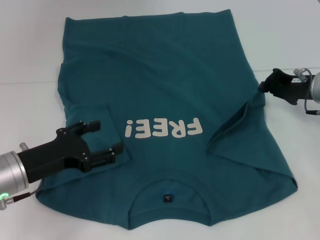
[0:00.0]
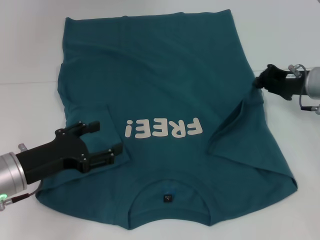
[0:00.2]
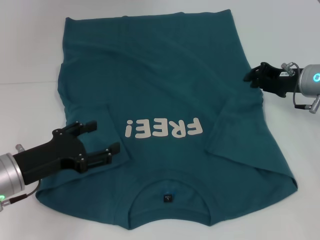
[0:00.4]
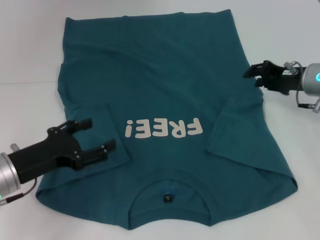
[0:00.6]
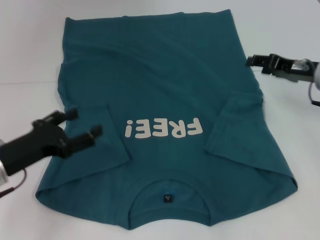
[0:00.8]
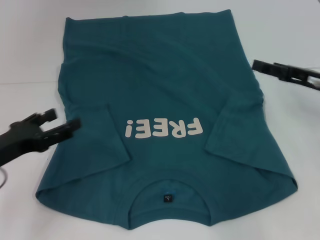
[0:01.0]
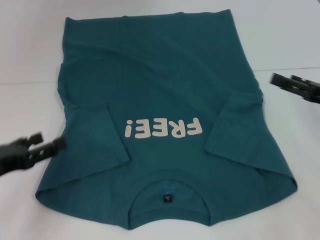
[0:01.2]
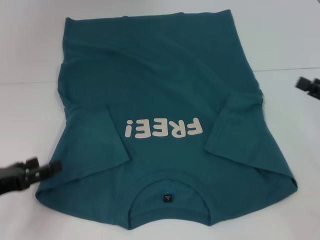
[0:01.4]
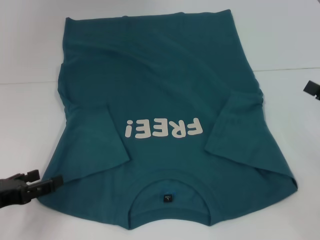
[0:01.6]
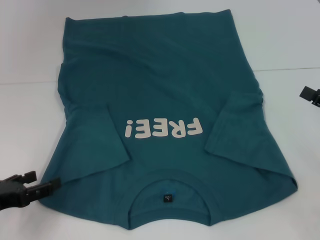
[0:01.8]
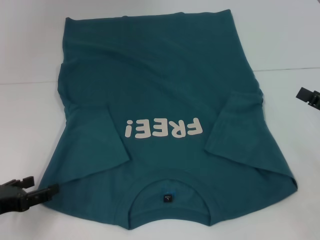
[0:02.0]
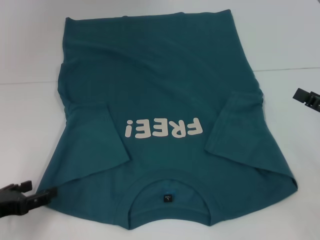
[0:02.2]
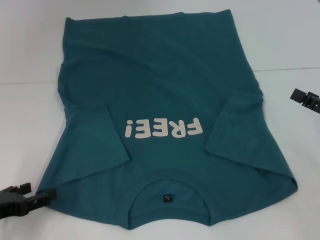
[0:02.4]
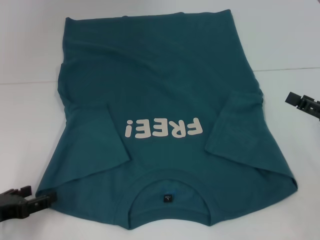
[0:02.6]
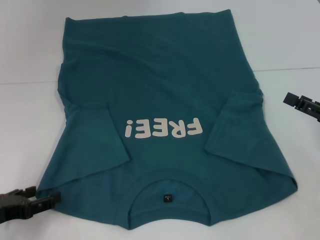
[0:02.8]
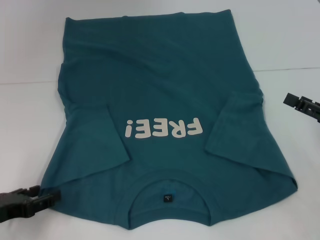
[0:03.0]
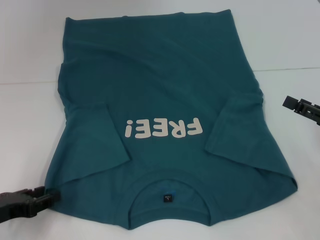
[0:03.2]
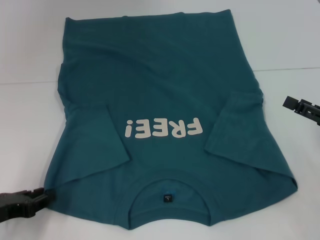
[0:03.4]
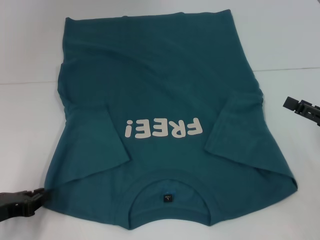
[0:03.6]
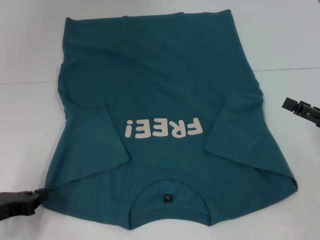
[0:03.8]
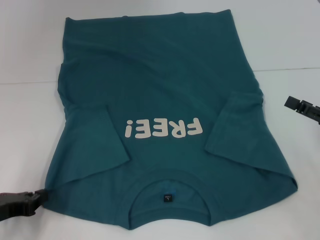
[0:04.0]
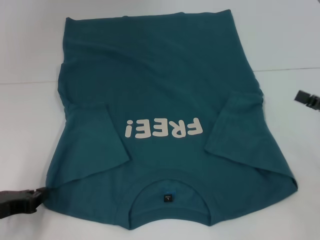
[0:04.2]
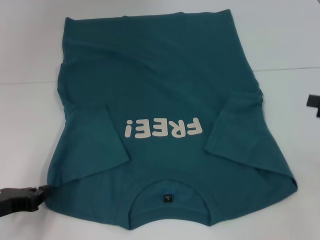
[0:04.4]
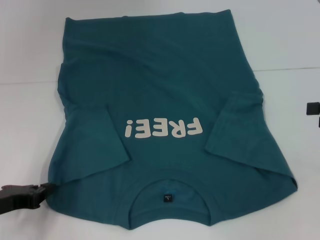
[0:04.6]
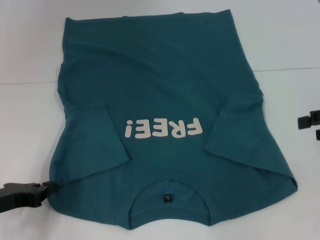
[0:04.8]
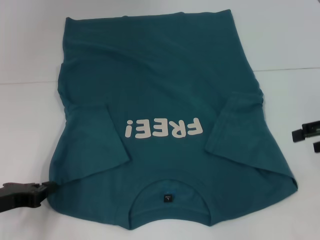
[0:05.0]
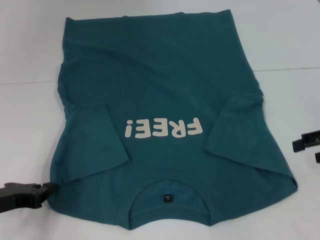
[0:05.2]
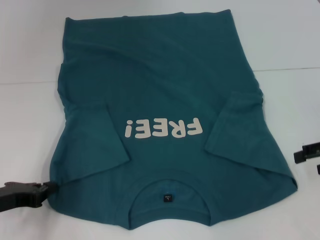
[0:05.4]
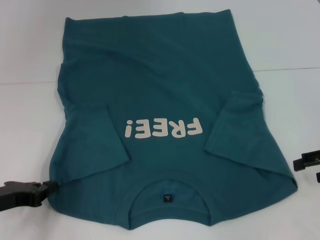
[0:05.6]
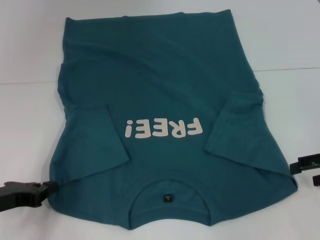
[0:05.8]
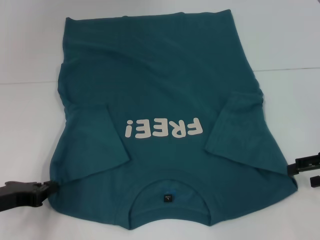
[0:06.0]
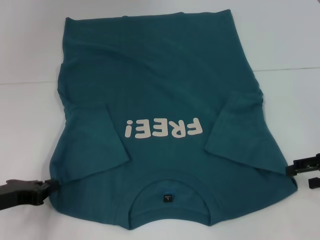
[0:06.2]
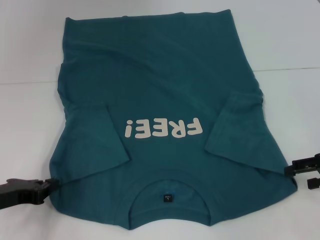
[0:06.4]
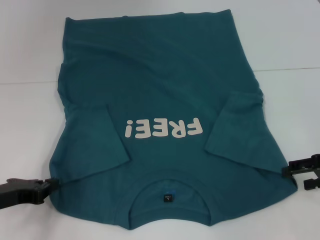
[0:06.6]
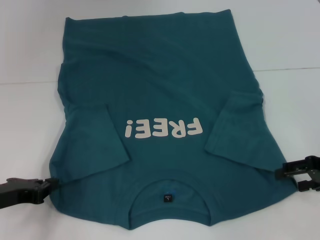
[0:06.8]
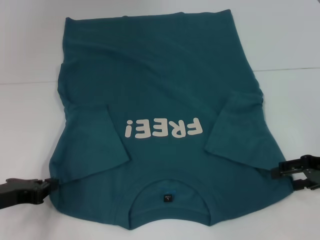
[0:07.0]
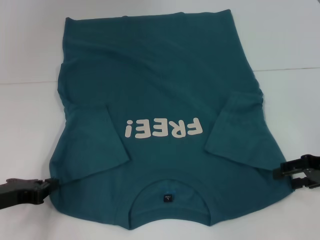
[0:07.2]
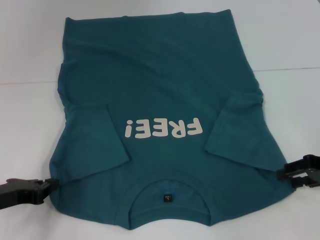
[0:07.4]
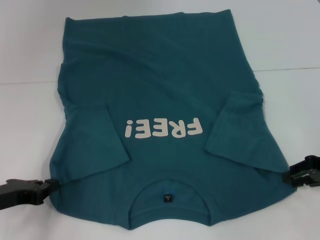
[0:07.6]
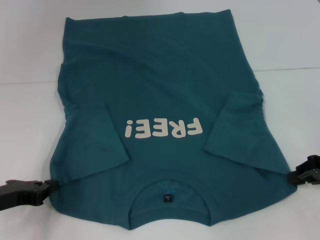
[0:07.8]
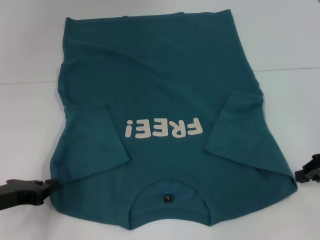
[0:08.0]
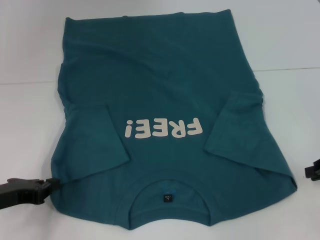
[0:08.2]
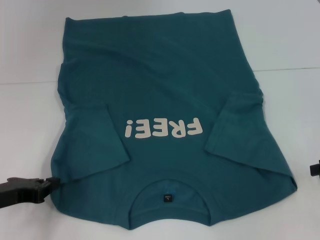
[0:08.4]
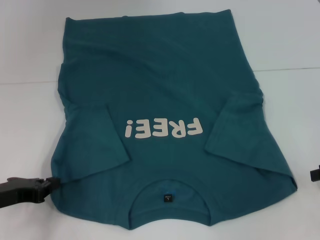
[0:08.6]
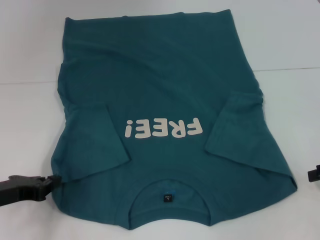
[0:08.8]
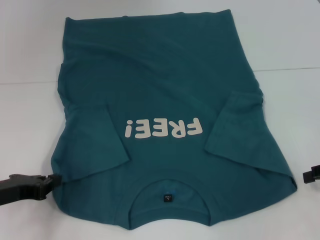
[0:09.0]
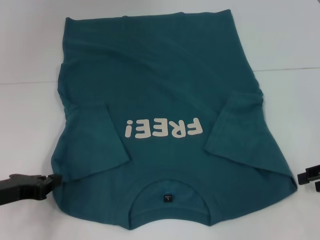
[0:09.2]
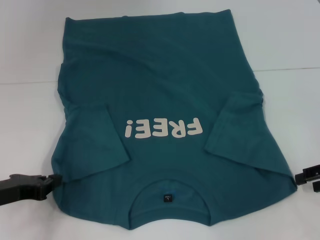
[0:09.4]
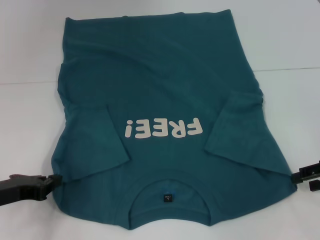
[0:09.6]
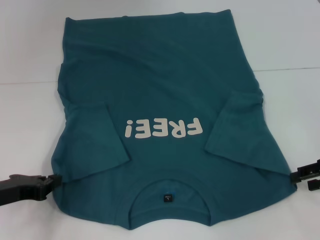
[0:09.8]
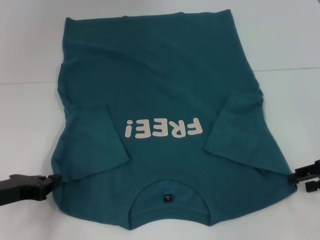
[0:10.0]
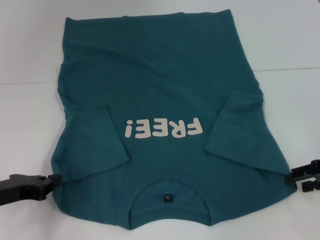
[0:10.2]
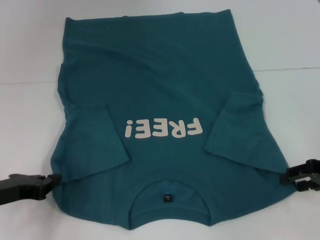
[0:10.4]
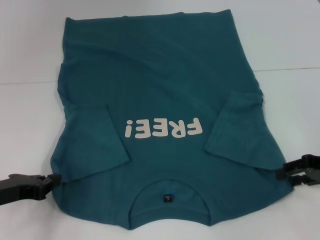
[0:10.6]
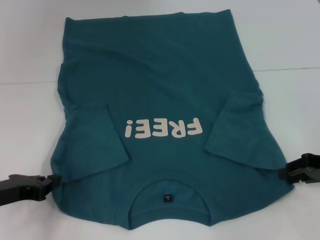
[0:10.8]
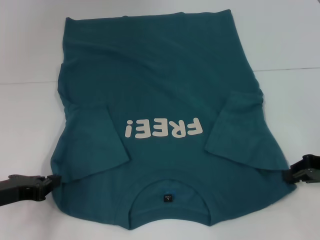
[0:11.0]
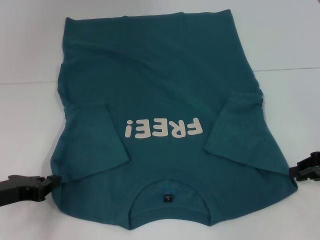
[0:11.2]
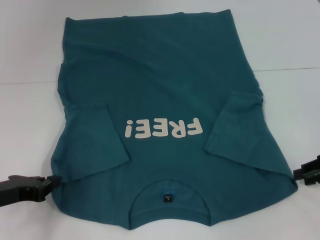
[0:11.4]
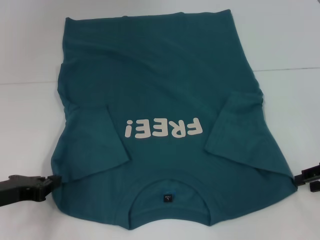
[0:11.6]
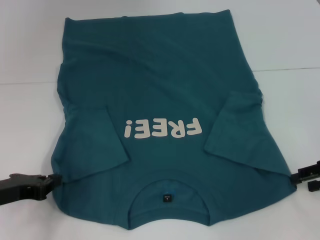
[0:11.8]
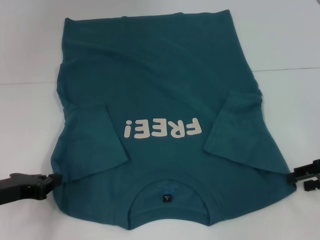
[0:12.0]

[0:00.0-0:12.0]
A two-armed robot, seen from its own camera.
Step, 0:00.6 to 0:04.4: Grab the bottom left corner with your left hand.
0:00.0 to 0:01.6: The right gripper is displaced backward and to the right by roughly 15 cm, and opens. The left gripper moves to the left and backward, roughly 10 cm.
0:01.6 to 0:03.0: There are only small adjustments of the grippers.
0:03.0 to 0:04.4: The left gripper closes its fingers; the right gripper moves upward, some 5 cm.
0:06.0 to 0:07.6: The grippers make only small movements.
0:07.6 to 0:09.0: The right gripper closes, then opens again.
0:09.0 to 0:10.4: There are only small adjustments of the grippers.
0:10.4 to 0:12.0: The right gripper closes, then reopens.

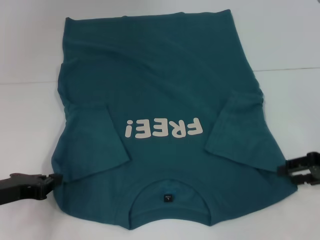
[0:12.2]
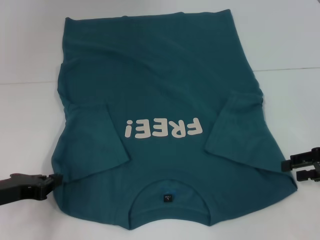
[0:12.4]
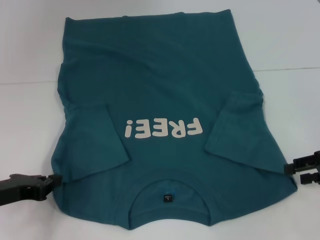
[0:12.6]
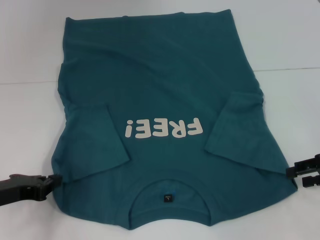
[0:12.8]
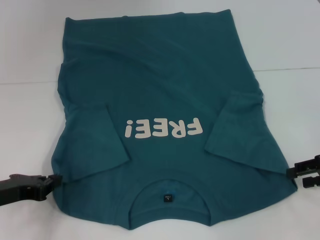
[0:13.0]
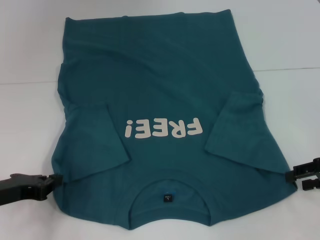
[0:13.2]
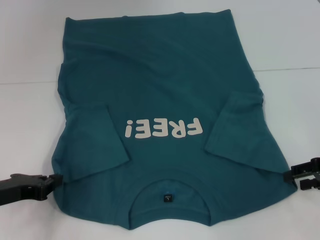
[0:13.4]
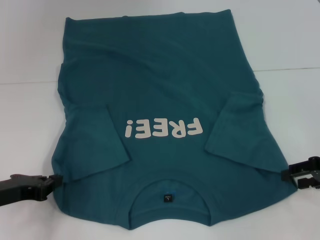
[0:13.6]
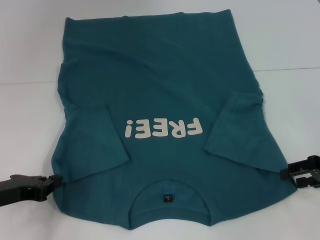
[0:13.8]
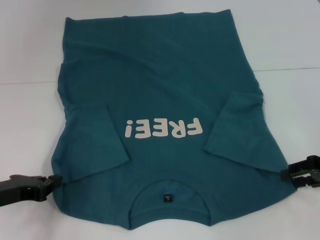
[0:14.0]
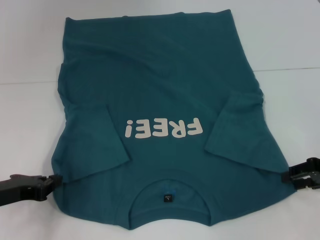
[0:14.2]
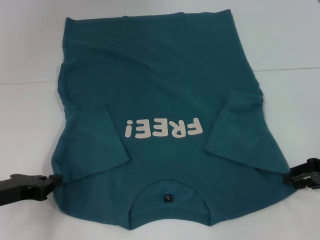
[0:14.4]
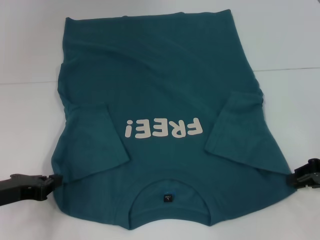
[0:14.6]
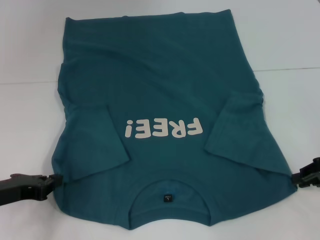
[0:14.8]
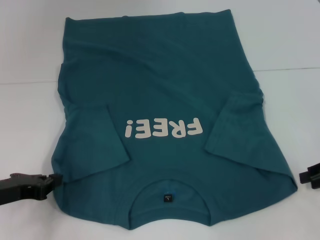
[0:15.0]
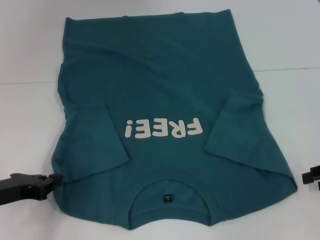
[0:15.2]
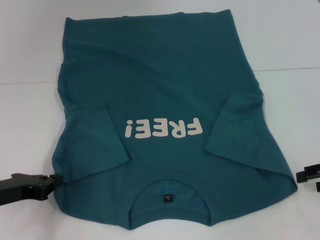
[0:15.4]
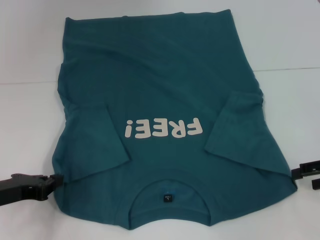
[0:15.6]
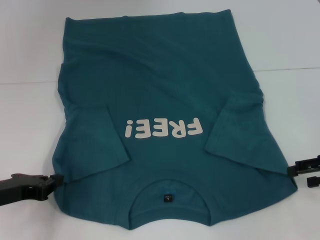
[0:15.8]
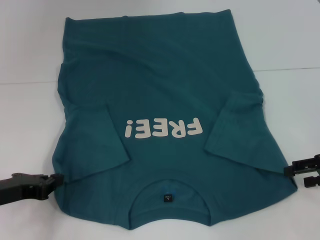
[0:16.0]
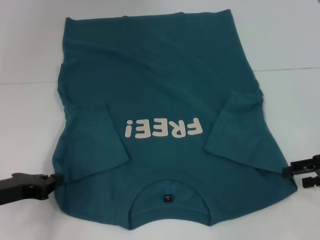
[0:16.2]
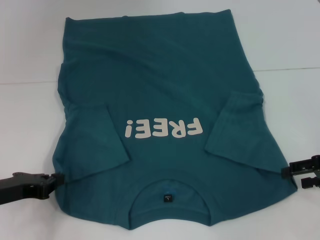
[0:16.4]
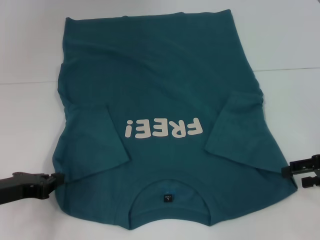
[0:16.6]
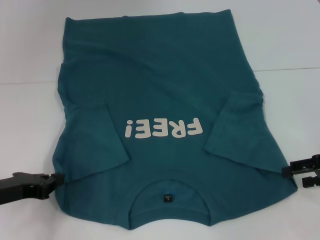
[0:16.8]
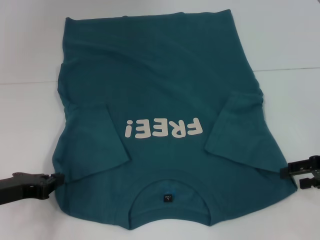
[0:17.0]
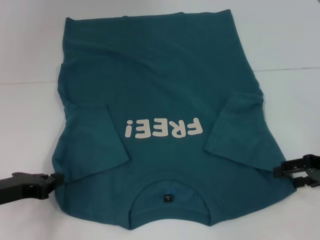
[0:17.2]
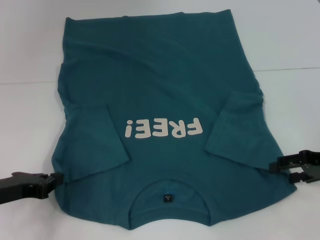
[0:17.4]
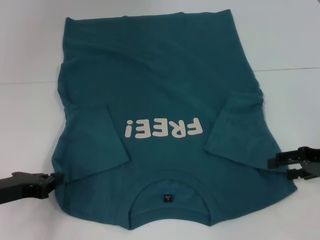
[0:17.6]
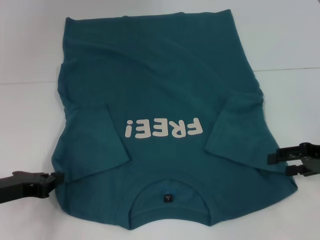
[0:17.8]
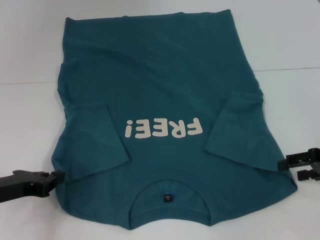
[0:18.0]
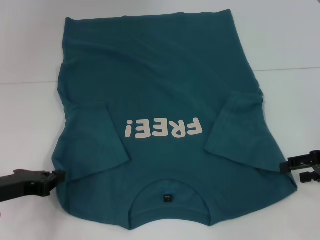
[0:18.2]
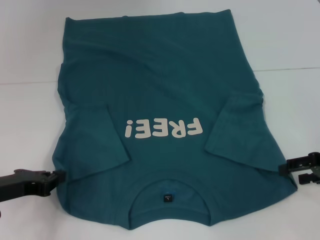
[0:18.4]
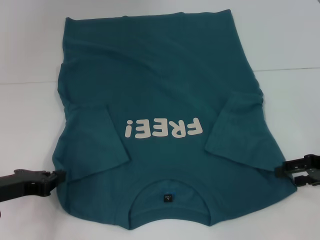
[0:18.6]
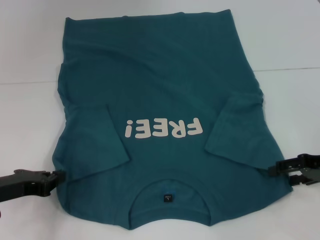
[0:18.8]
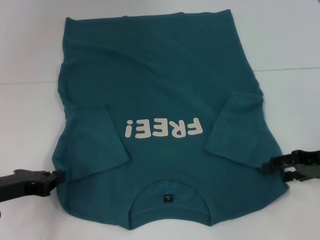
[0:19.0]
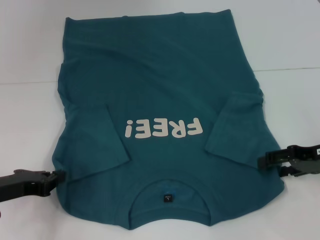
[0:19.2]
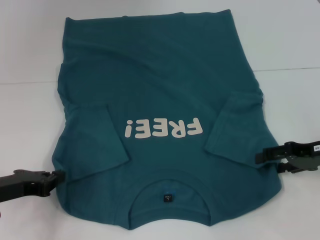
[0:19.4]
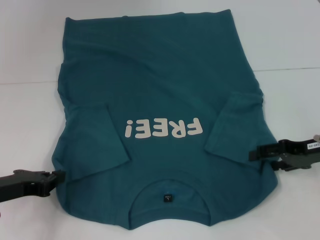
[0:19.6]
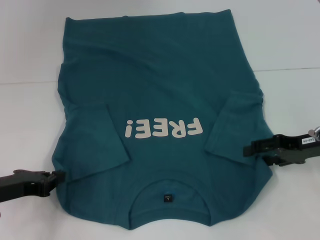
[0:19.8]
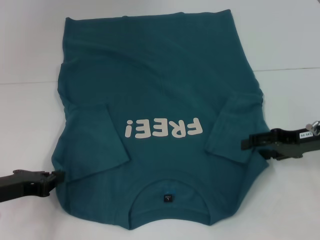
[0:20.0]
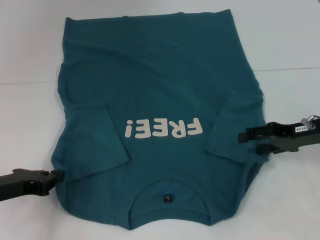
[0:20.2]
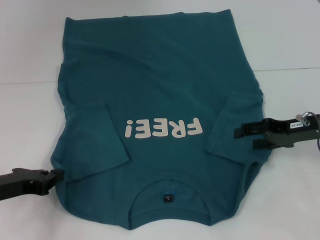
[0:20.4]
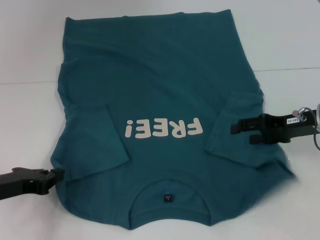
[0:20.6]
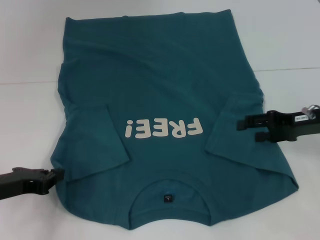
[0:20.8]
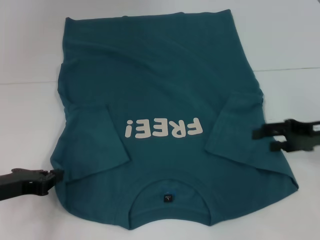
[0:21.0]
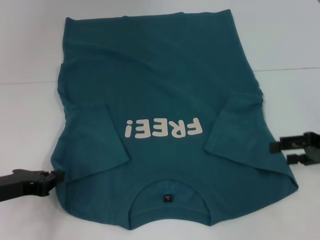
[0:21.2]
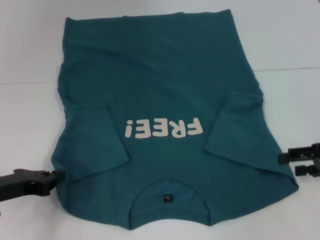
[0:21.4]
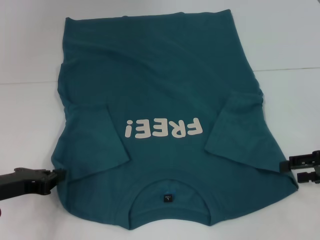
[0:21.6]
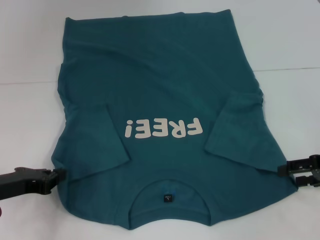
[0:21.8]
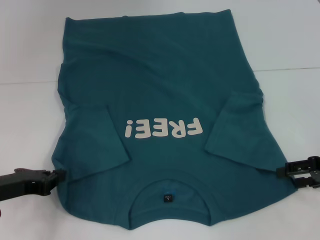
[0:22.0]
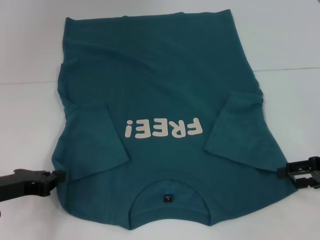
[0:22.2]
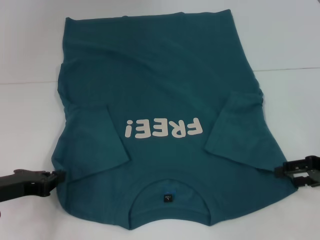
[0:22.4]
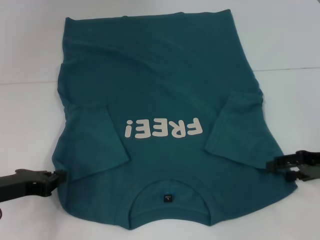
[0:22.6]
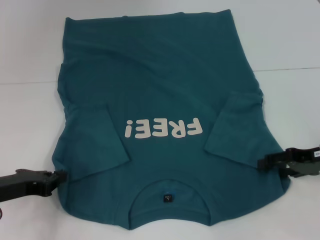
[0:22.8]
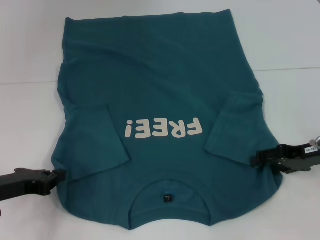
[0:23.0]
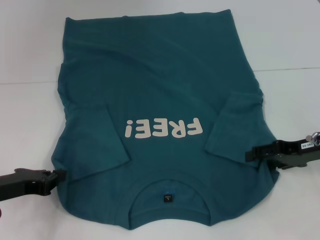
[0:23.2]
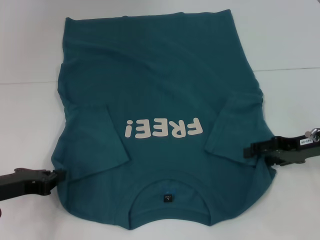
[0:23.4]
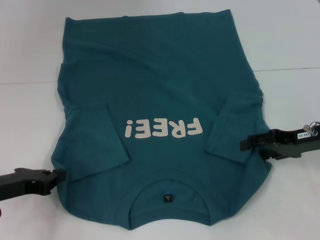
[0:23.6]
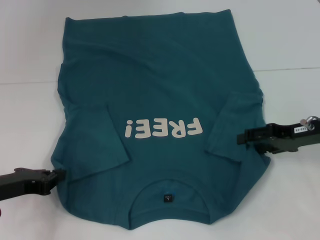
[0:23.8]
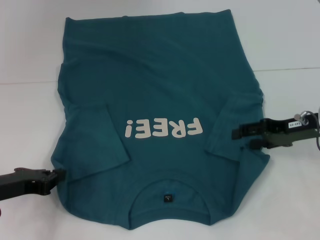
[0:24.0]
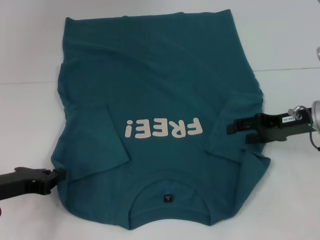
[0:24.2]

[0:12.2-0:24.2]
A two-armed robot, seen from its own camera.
0:12.2 to 0:13.8: Both grippers stay about where they are.
0:13.8 to 0:15.2: The grippers move only a little.
0:15.2 to 0:16.6: The right gripper opens its fingers.
0:16.6 to 0:18.2: The grippers stay close to where they were, moving slightly.
0:18.2 to 0:19.8: The right gripper changes place by roughly 5 cm.
0:19.8 to 0:21.2: There are only small adjustments of the grippers.
0:21.2 to 0:22.6: There are only small adjustments of the grippers.
0:22.6 to 0:24.2: The right gripper shifts about 10 cm to the left and forward.
